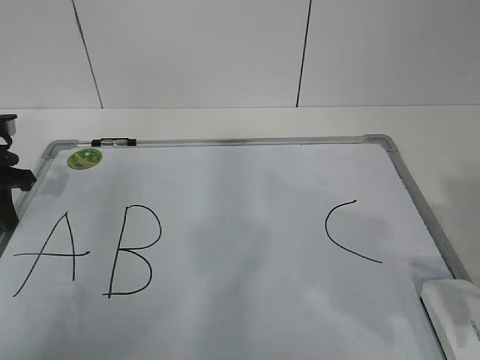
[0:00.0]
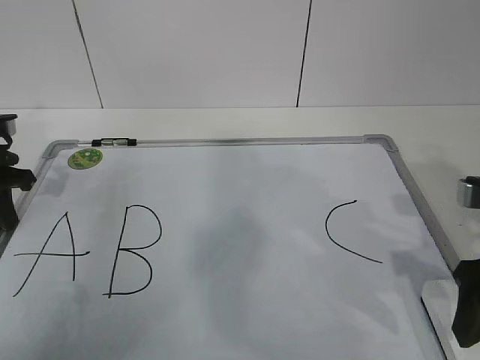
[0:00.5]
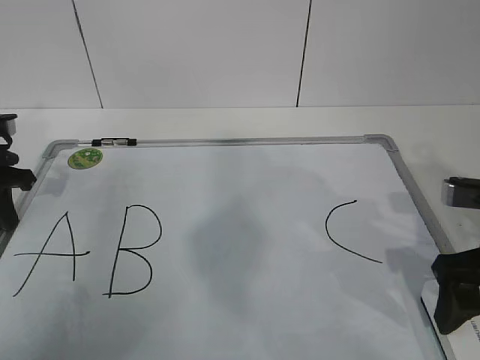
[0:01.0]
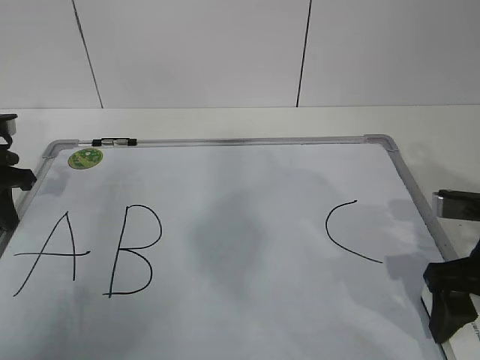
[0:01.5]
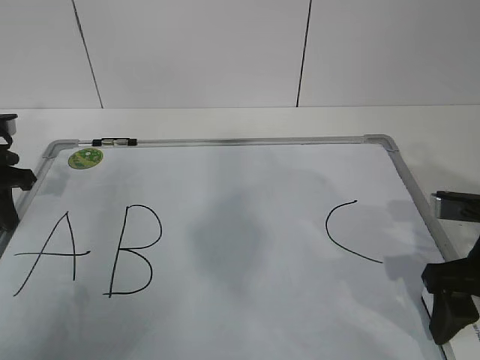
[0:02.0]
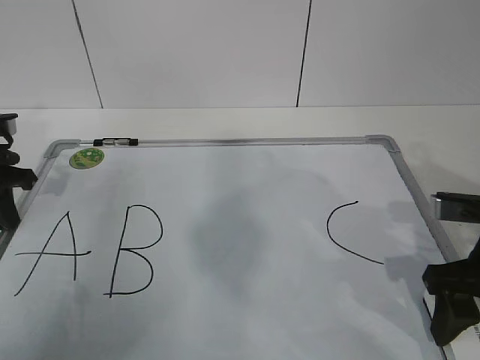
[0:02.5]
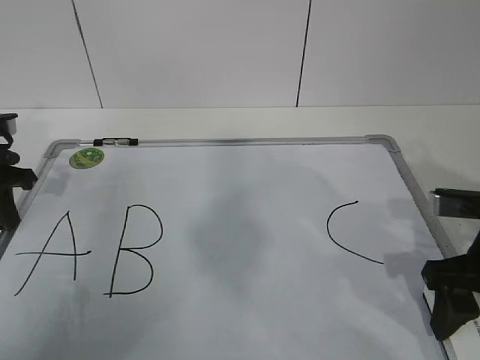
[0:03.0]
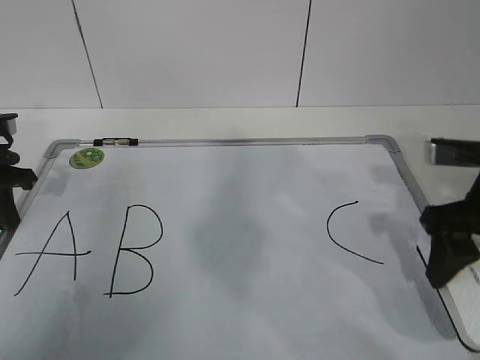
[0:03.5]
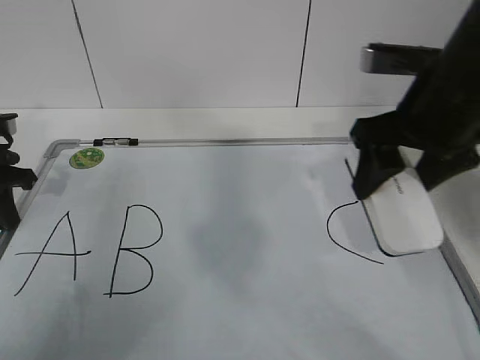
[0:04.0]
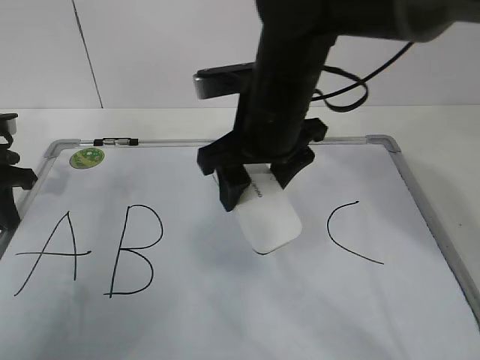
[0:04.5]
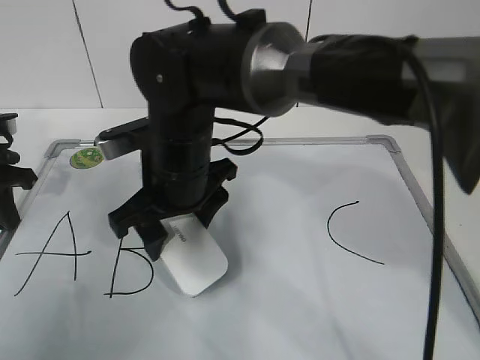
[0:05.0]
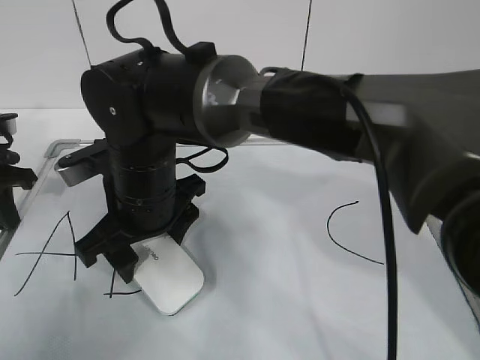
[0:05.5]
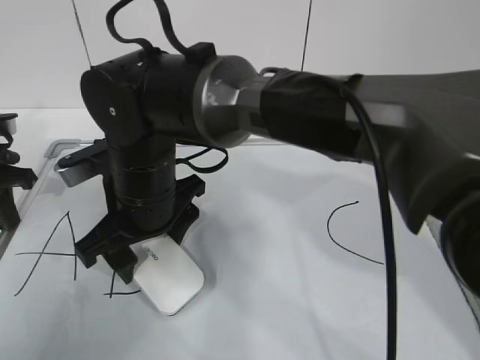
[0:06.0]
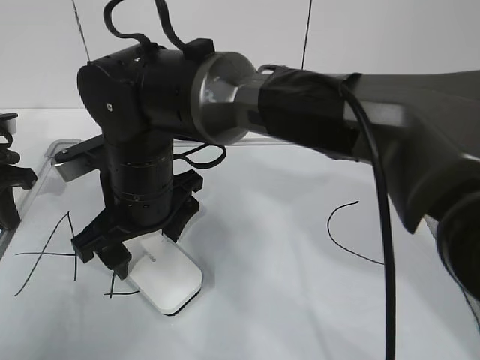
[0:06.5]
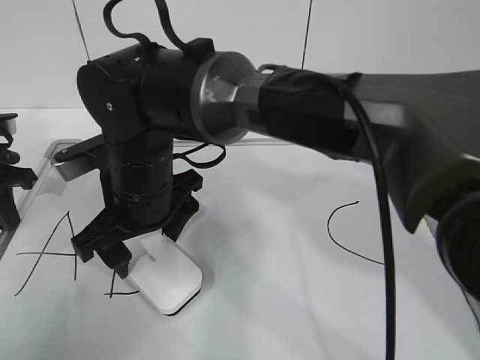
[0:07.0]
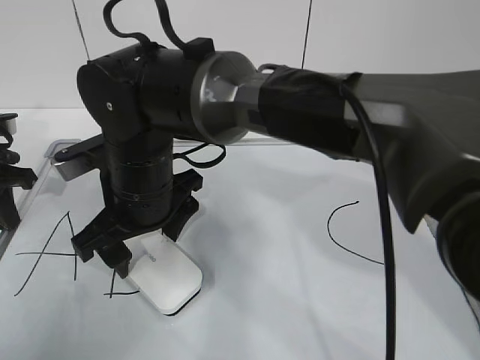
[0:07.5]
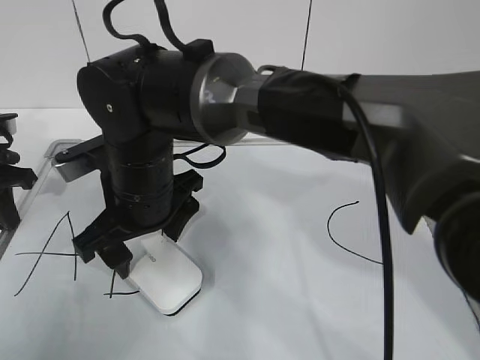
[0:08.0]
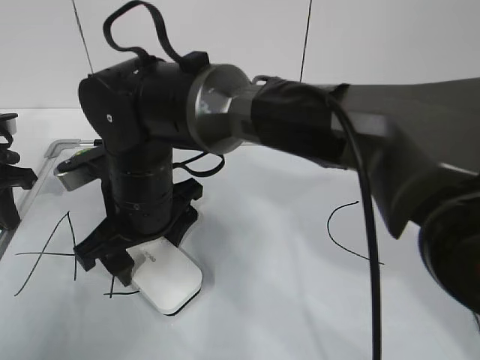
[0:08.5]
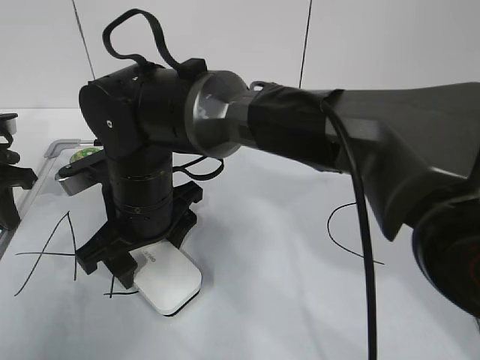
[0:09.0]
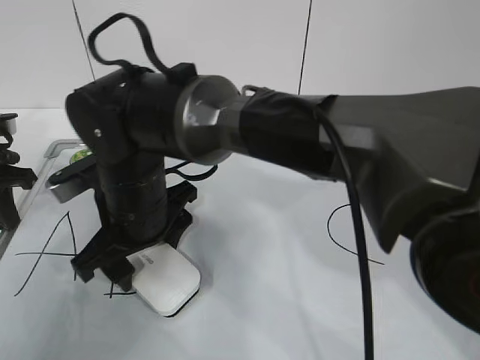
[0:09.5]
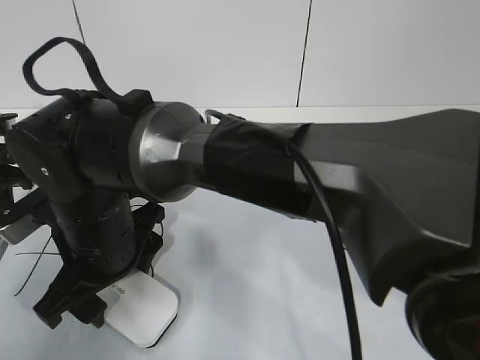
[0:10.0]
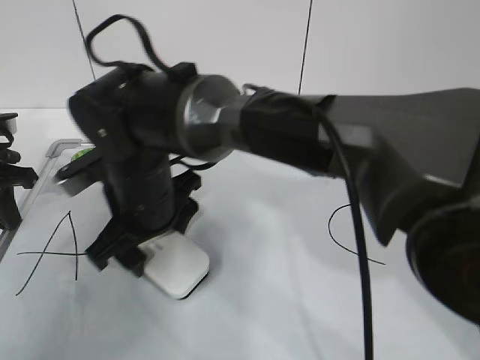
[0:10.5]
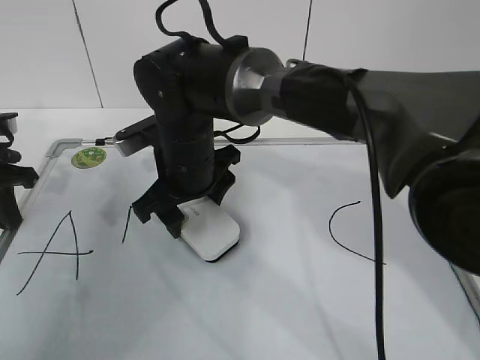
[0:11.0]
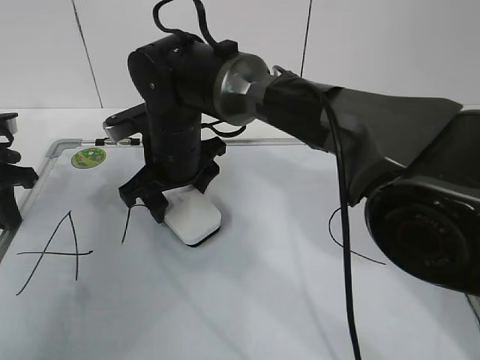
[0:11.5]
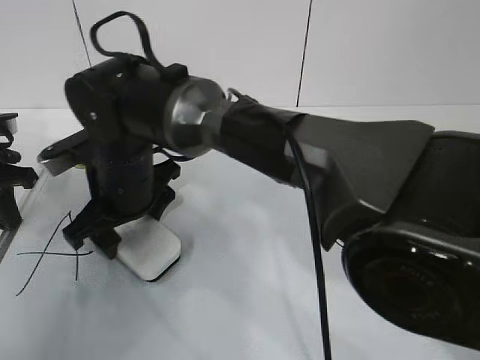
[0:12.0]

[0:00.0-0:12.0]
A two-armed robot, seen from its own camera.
Task of the whole recording: pick up the eraser on the blackboard and erase the letter "B".
Step, 0:01.5 to 0:10.5: Erase the letter B with your right hand.
0:00.0 to 0:02.0: The right gripper heads forward and downward, covering roughly 10 cm, and closes up.
0:02.0 to 0:04.0: The right gripper is displaced upward, forward and to the left by about 15 cm.
0:04.0 to 0:06.0: The right gripper is displaced to the left by roughly 25 cm.
0:06.0 to 0:08.0: The right gripper opens up.
0:08.0 to 0:10.0: The right gripper moves approximately 5 cm, and closes its fingers.
0:10.0 to 0:12.0: The right gripper is displaced forward by roughly 10 cm.

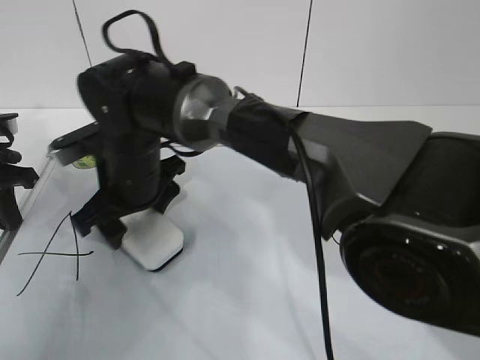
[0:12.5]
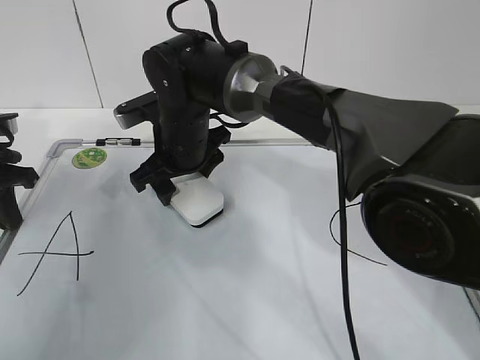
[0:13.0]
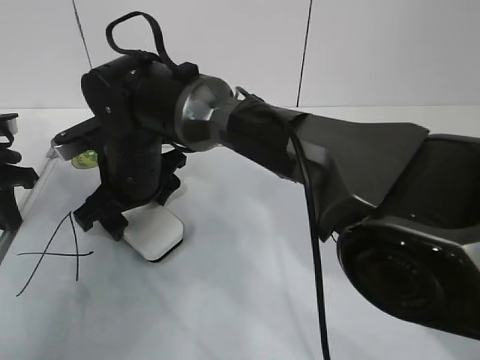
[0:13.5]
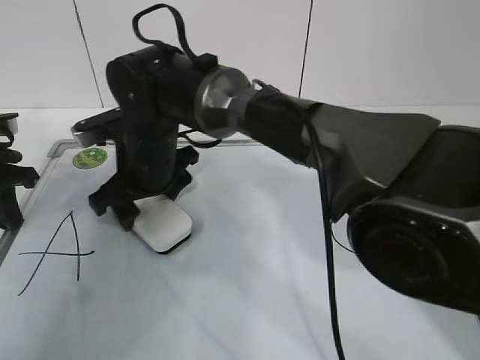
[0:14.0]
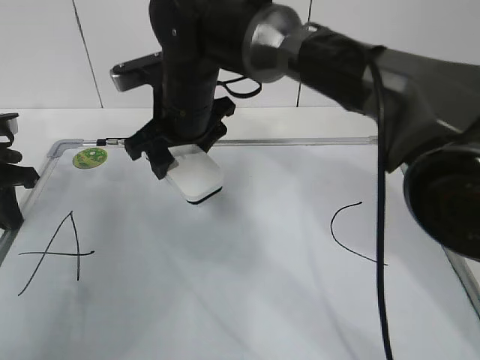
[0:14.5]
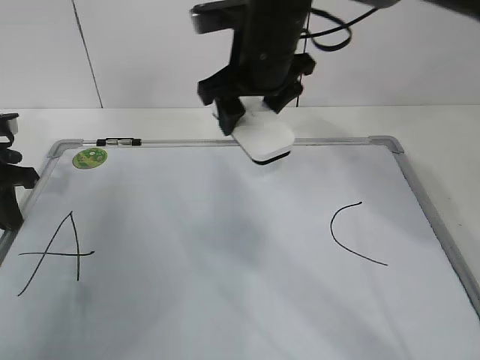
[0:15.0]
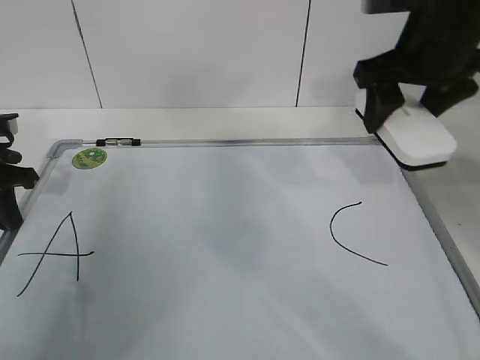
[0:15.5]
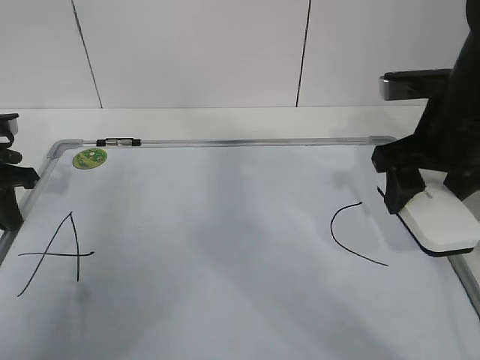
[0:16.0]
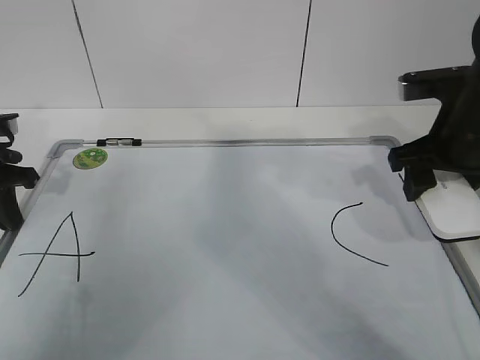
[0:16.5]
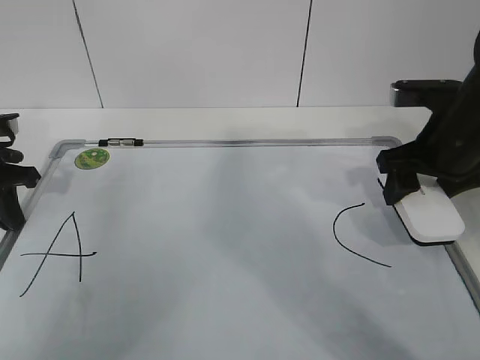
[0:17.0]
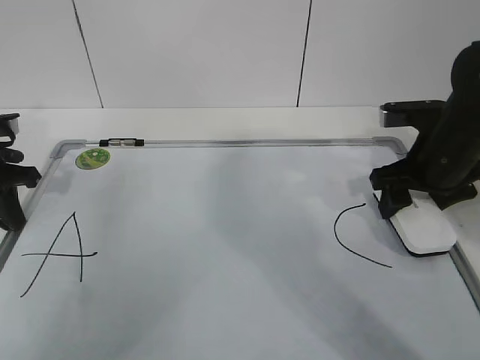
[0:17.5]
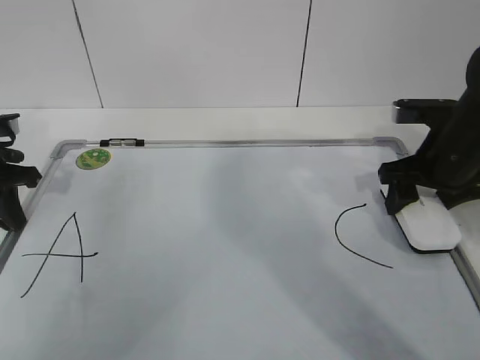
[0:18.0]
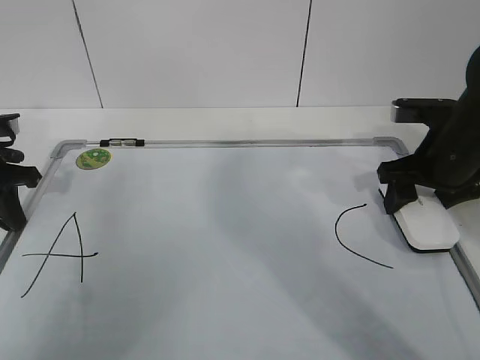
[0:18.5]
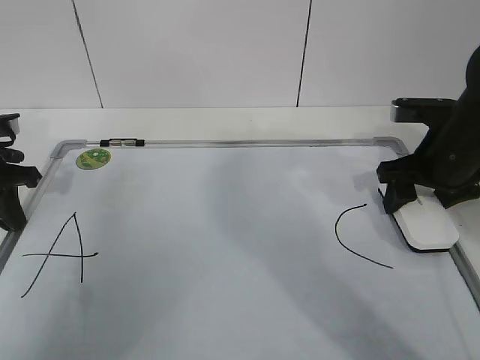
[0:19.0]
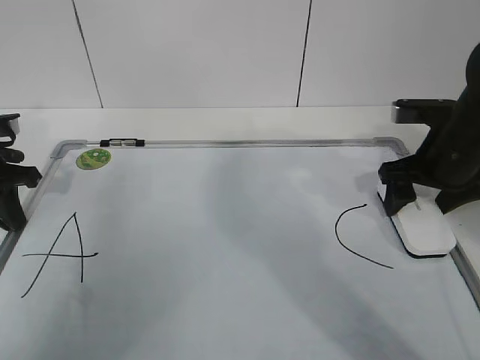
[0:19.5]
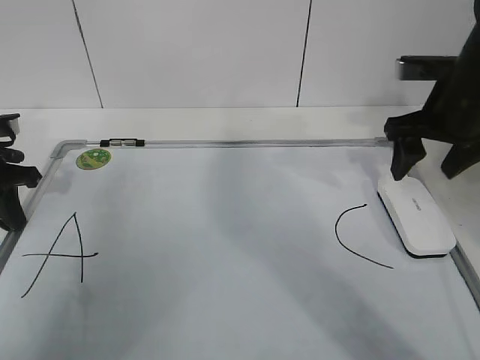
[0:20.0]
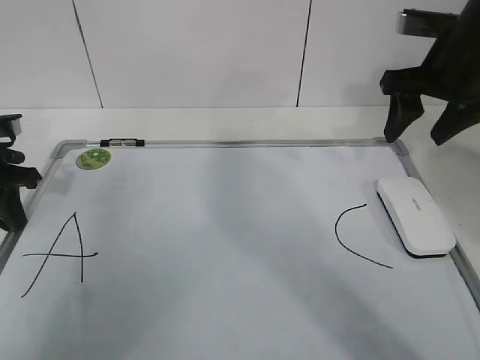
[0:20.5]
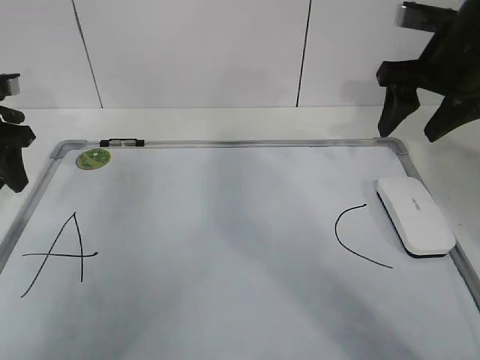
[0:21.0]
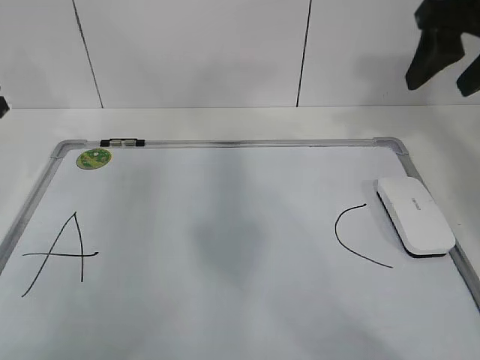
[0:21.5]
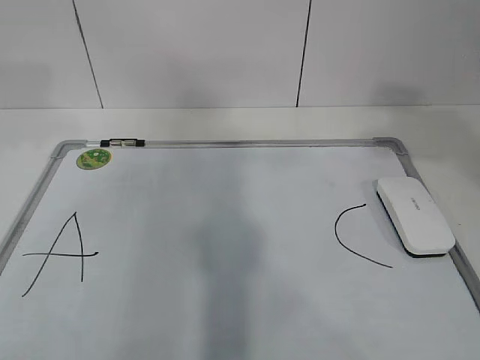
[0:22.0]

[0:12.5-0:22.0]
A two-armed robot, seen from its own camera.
Task of the whole recording: pick up the eraser on the blackboard and erase the letter "B".
Step, 0:12.5 to 0:14.5: Put down the eraser with your right hand.
0:12.5 to 0:14.5: The right gripper goes left and right, roughly 5 cm each way, reversing 2 times.
0:14.5 to 0:16.5: The right gripper goes roughly 30 cm to the right.
0:16.5 to 0:18.0: The right gripper goes roughly 5 cm downward.
0:18.0 to 0:20.0: The right gripper goes approximately 5 cm upward, and opens its fingers.
0:20.0 to 0:22.0: The left gripper shifts about 20 cm upward, and opens. Meanwhile the right gripper heads upward and backward, covering about 25 cm, and closes its fingers.

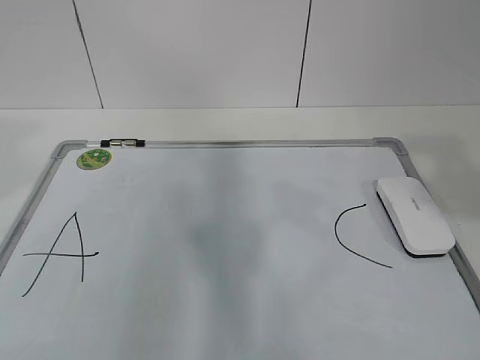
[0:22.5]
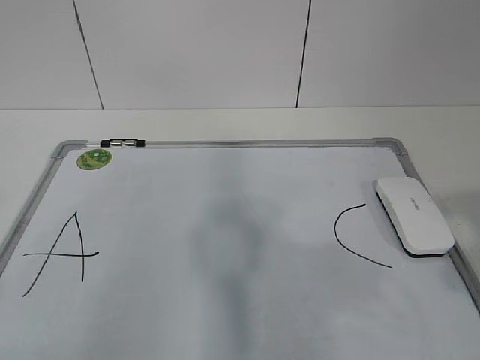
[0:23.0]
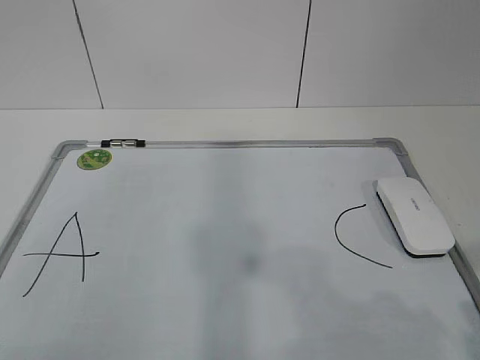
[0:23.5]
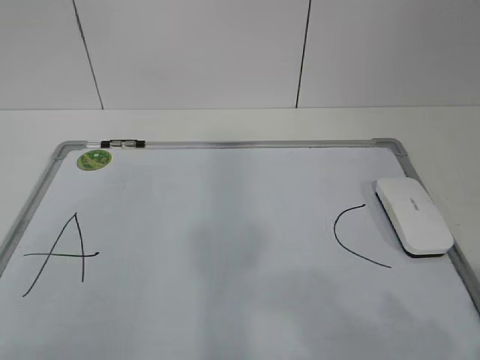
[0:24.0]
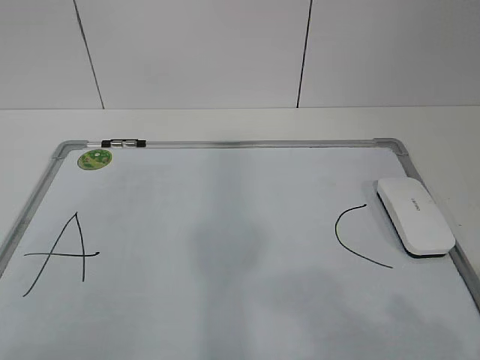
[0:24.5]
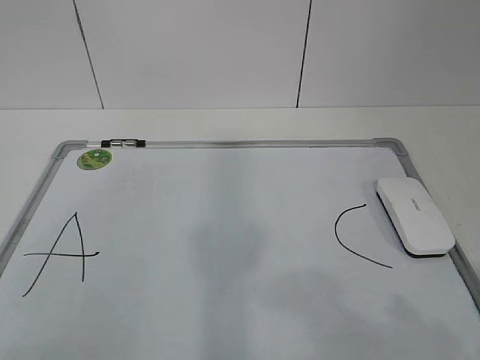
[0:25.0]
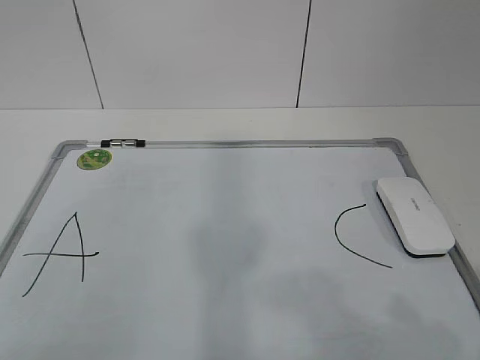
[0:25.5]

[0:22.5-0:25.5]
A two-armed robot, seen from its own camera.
Task of the whole recording: pick up the eraser on the blackboard and erase the letter "B".
0:22.5 to 0:24.0: The right gripper shifts approximately 15 cm downward and backward.
0:24.0 to 0:25.5: Both grippers stay about where they are.

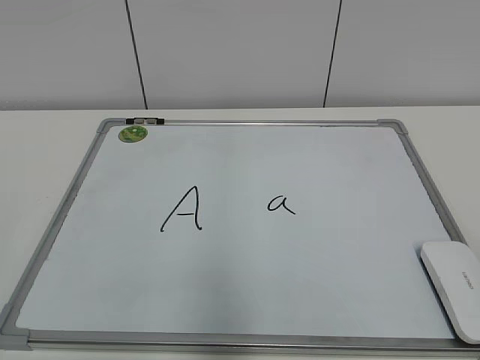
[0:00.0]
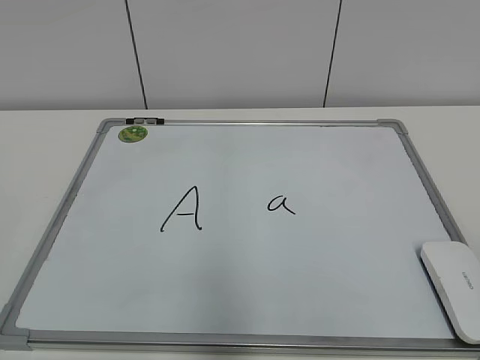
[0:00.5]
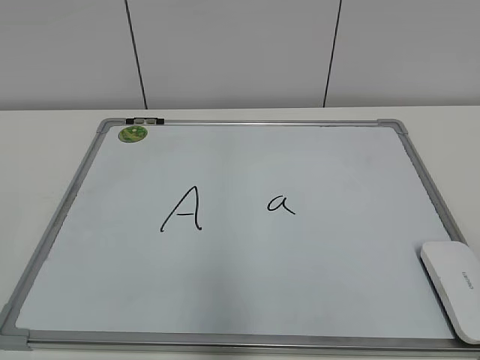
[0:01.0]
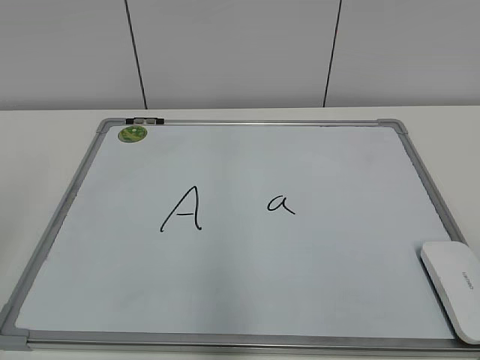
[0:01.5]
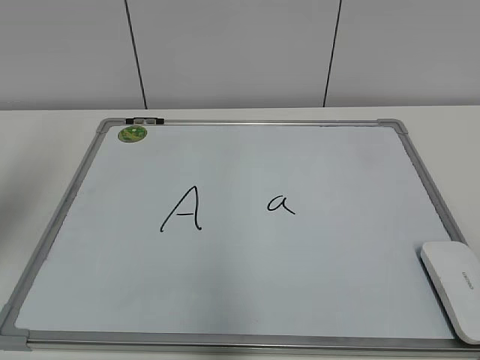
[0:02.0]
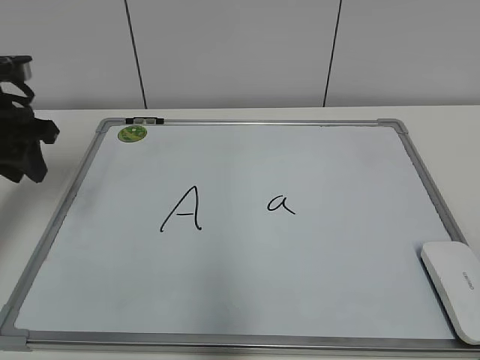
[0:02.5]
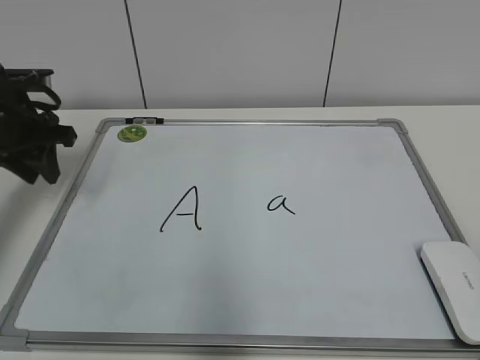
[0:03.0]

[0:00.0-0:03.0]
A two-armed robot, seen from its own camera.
Task of the whole recording: pick up the eraser on the blackboard and erase the letter "a".
0:01.5 to 0:03.0: The left gripper shifts roughly 30 cm forward.
